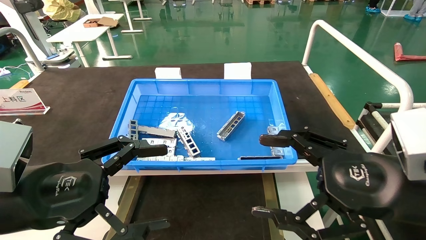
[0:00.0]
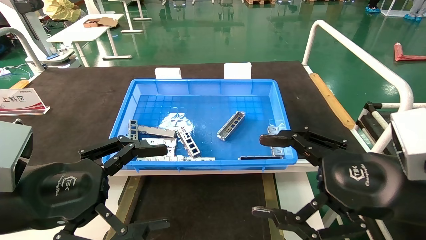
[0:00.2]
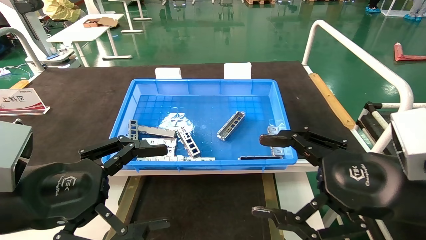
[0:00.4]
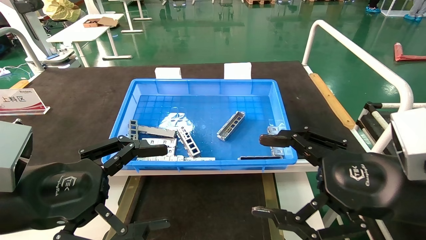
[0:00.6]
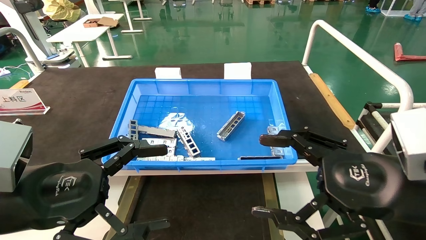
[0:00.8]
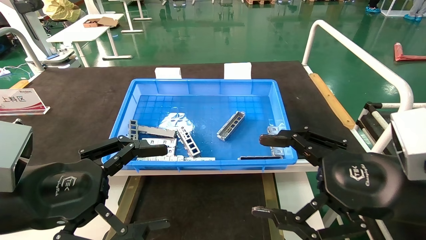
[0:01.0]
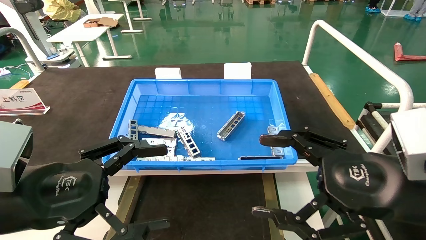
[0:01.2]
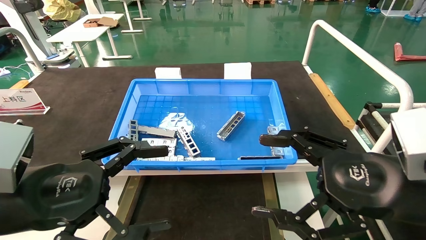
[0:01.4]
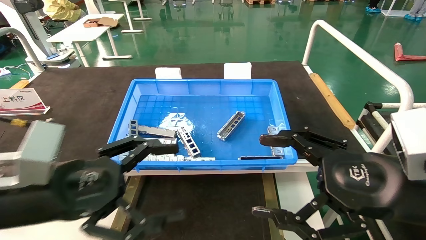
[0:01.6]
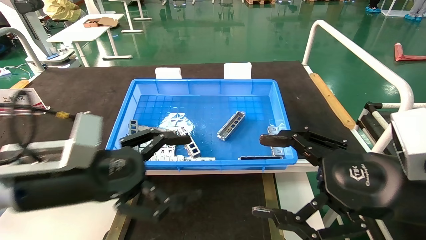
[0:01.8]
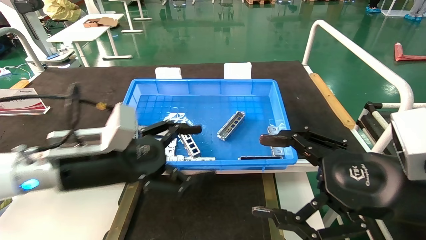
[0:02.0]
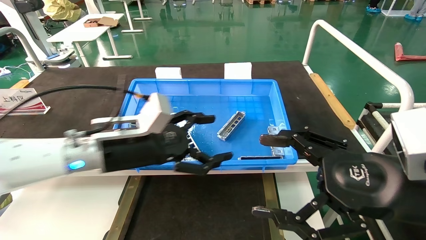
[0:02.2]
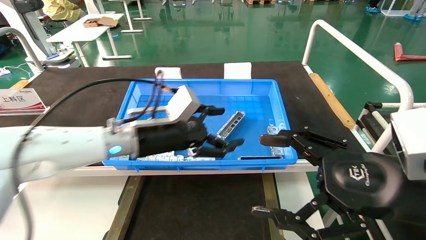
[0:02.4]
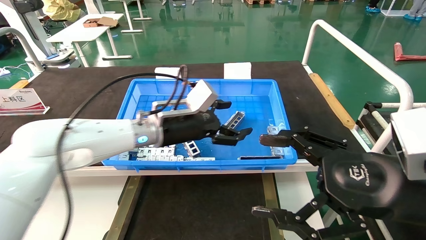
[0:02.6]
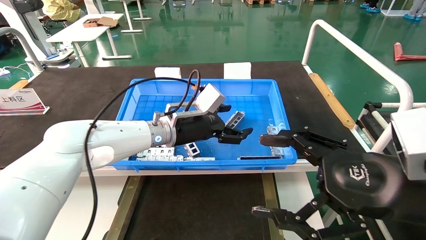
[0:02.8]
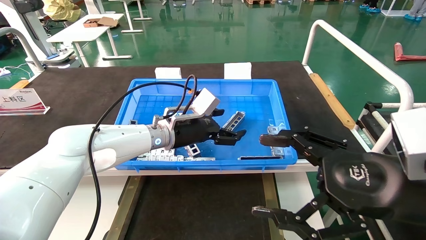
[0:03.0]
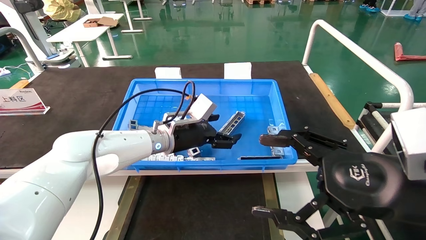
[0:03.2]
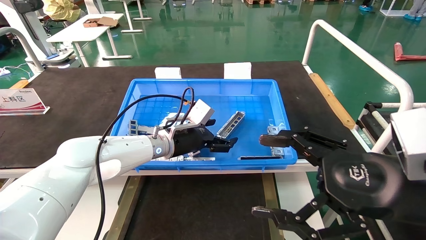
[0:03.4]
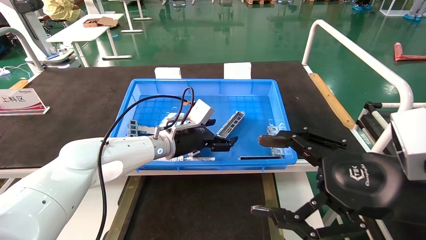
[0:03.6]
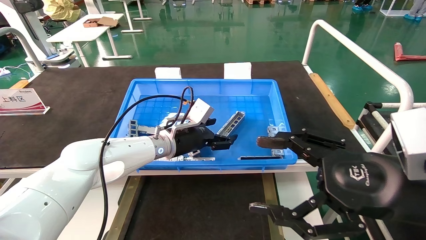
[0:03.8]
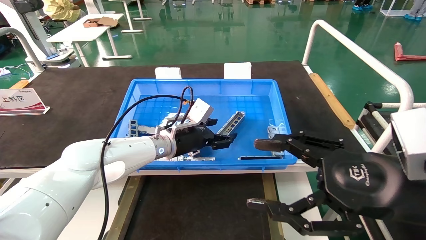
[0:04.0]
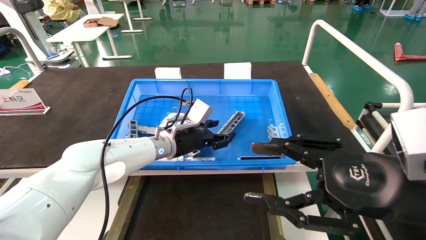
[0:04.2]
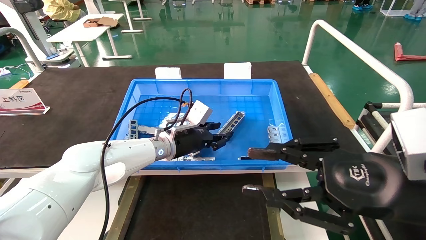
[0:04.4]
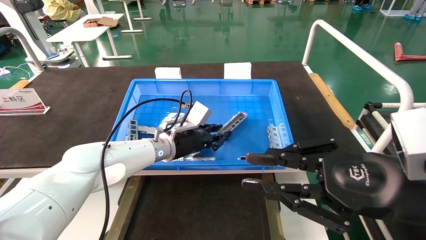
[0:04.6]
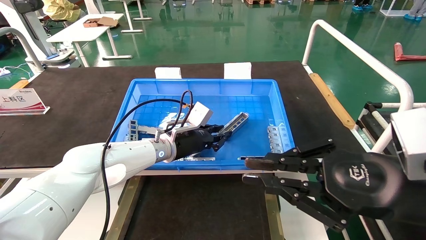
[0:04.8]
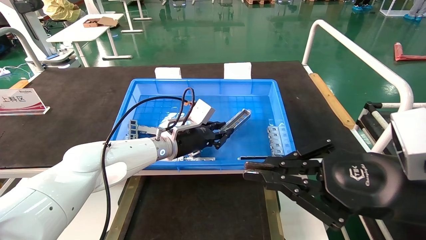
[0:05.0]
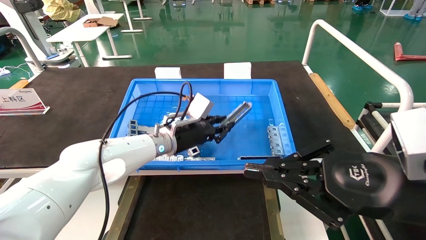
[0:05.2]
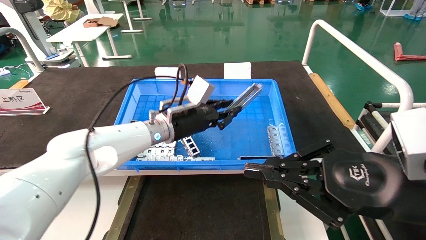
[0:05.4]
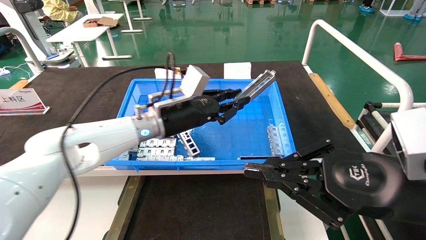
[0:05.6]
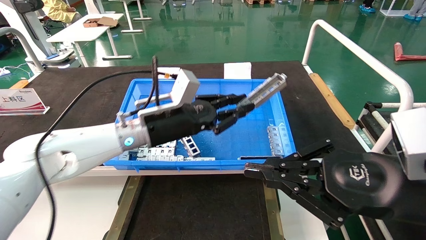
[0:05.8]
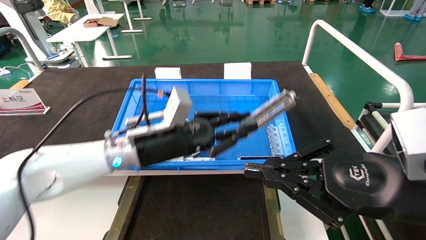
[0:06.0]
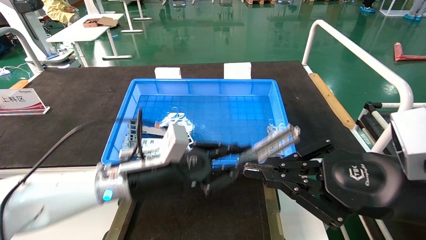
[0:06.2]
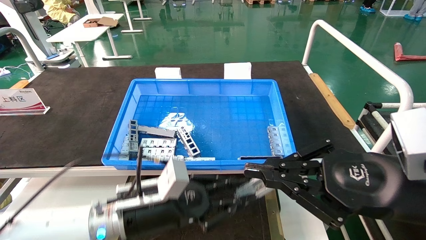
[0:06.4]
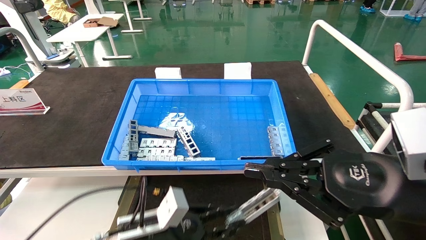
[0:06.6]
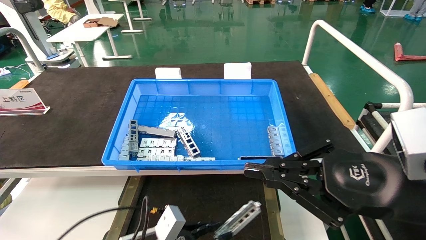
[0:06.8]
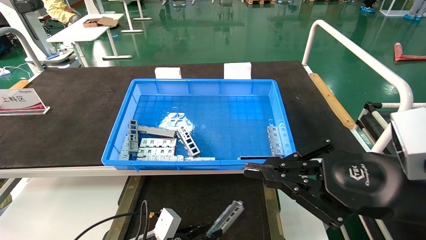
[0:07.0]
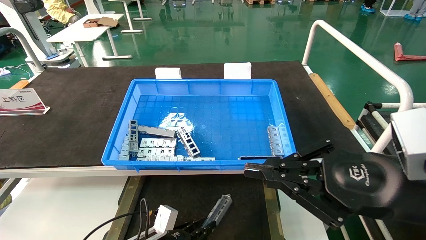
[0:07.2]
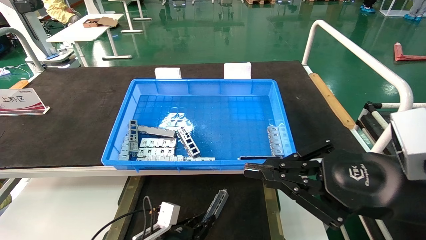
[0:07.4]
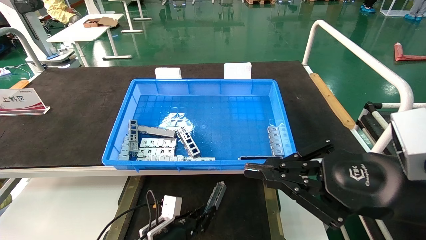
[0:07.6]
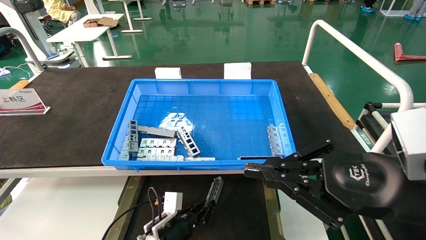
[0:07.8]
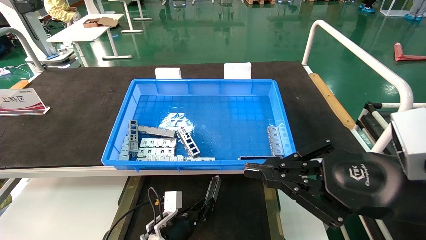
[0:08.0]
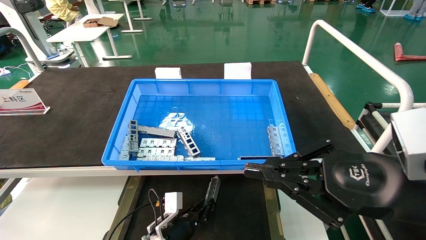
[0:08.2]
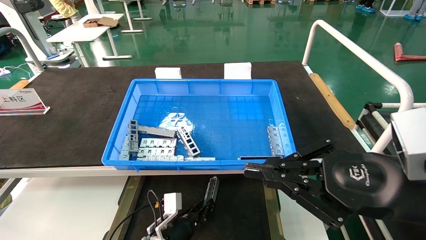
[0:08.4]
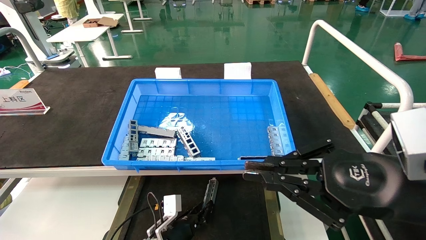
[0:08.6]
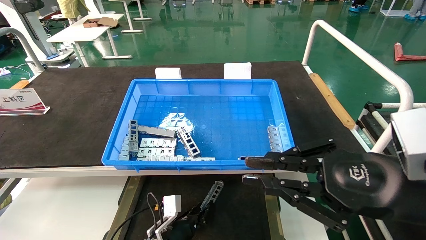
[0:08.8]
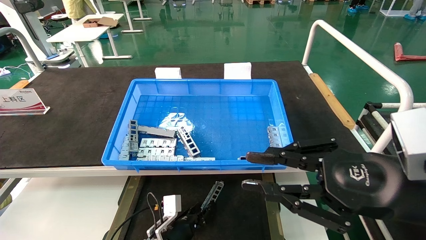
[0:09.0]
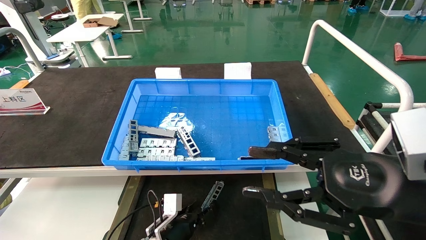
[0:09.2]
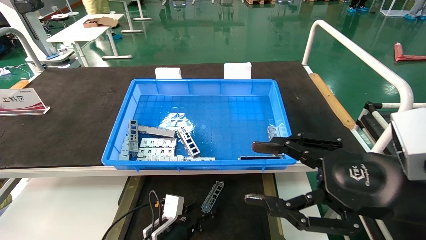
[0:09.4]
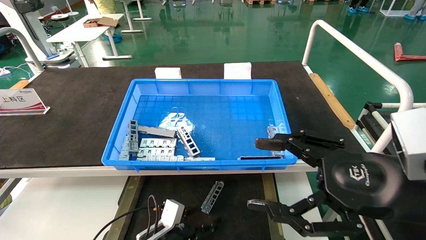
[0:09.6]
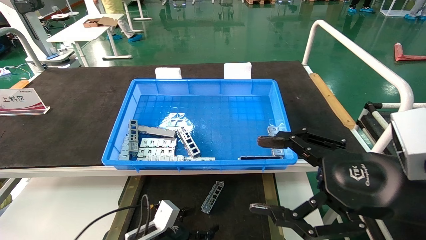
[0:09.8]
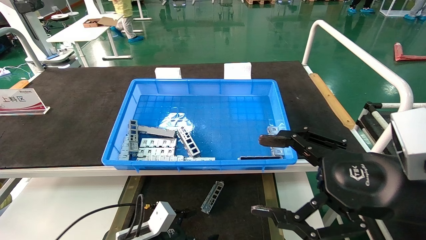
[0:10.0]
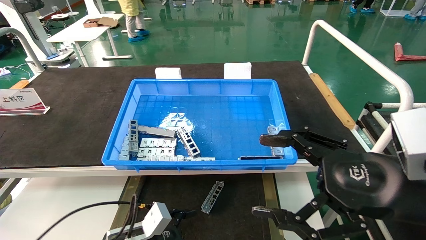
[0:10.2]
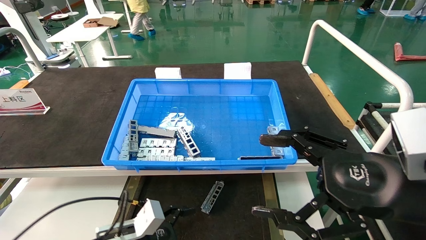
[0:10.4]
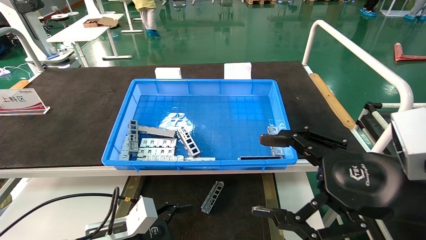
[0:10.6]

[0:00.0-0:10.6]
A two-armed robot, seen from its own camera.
Task of the whole recording: Grasp the part with one hand and place it on the black container.
Step, 0:01.8 to 0:05.2: Pick up the front USB bracket from the feeding area.
Step, 0:05.4 to 0:09.0: Place the front USB bracket into the box.
0:00.0 to 0:01.6: The grippers stay close to where they were, moving slightly.
0:01.6 to 0:03.0: The left gripper moves forward and to the right, roughly 30 cm.
0:03.0 to 0:04.6: The right gripper closes up. The left gripper closes.
0:04.6 to 0:06.0: The left gripper heads backward, covering approximately 10 cm. The right gripper closes up.
0:06.0 to 0:07.6: The left gripper moves downward, roughly 25 cm.
0:07.6 to 0:09.0: The grippers stay close to where they were, moving slightly.
0:09.0 to 0:10.6: The right gripper opens up. The left gripper goes approximately 20 cm upward, backward and to the left, and opens its fingers.
